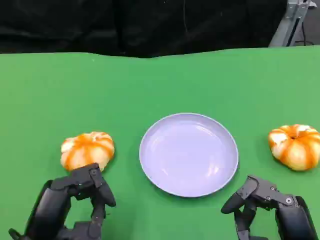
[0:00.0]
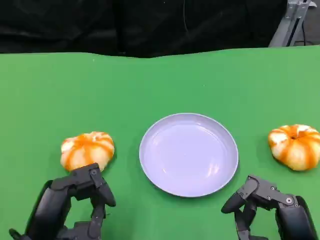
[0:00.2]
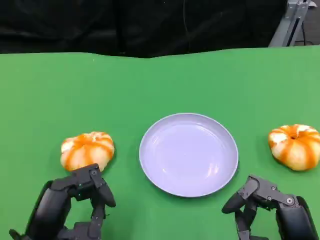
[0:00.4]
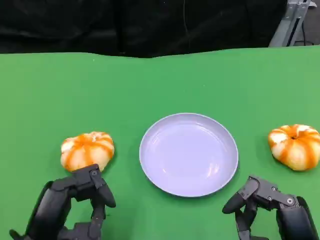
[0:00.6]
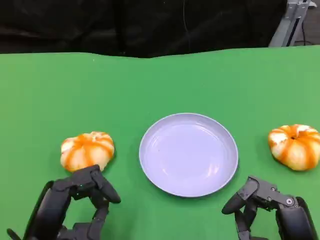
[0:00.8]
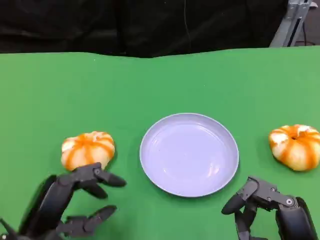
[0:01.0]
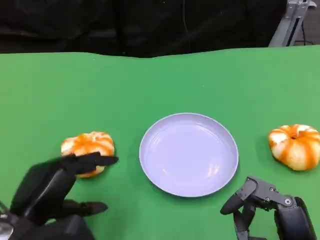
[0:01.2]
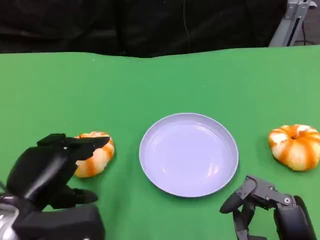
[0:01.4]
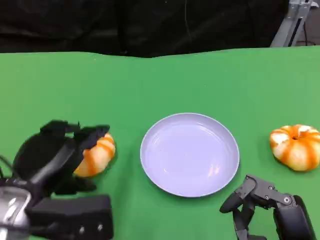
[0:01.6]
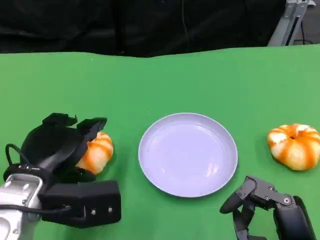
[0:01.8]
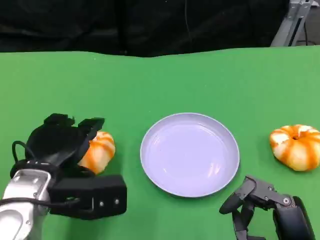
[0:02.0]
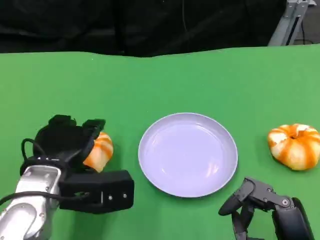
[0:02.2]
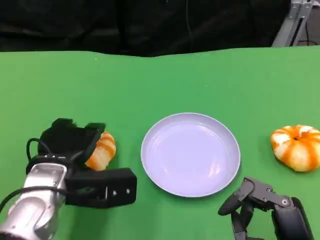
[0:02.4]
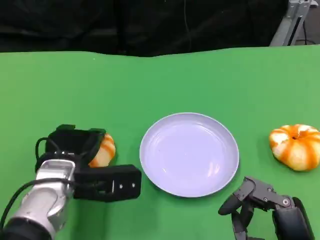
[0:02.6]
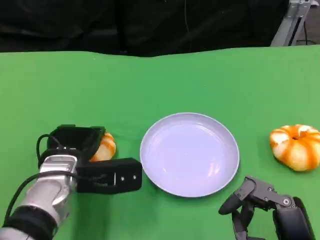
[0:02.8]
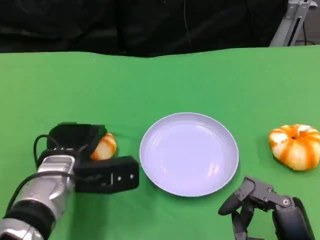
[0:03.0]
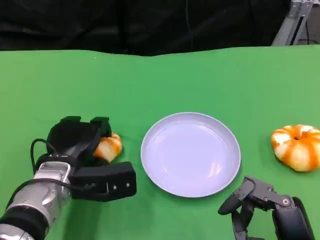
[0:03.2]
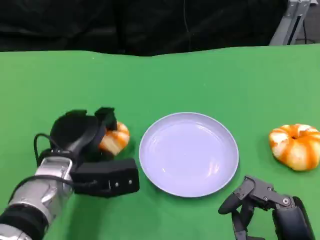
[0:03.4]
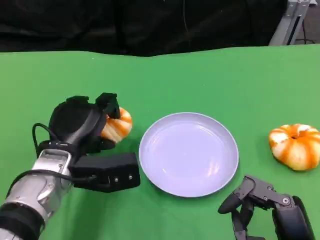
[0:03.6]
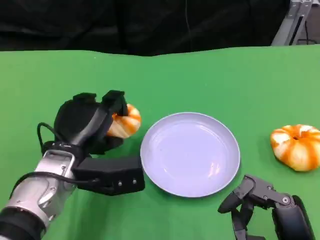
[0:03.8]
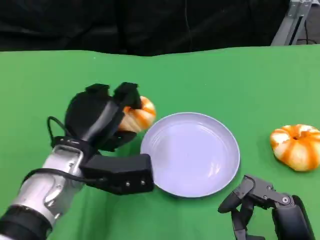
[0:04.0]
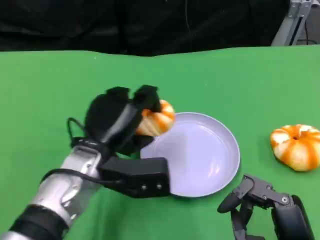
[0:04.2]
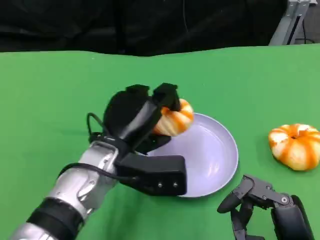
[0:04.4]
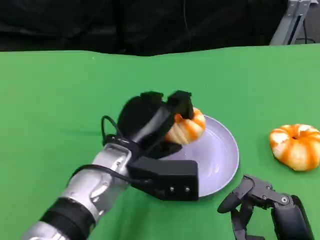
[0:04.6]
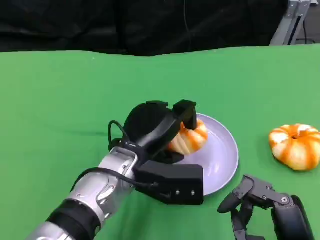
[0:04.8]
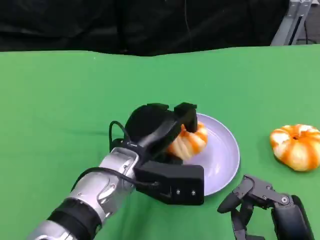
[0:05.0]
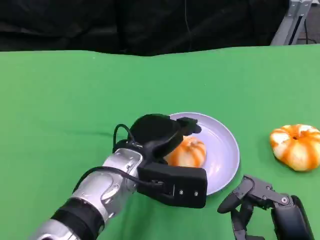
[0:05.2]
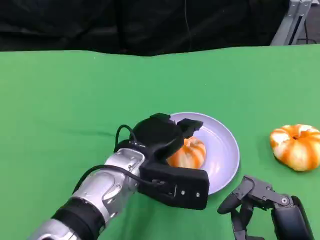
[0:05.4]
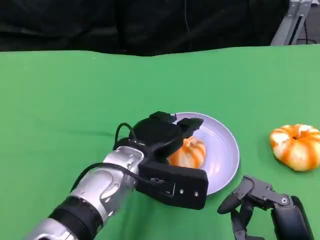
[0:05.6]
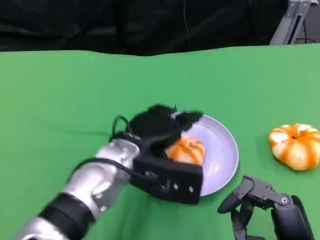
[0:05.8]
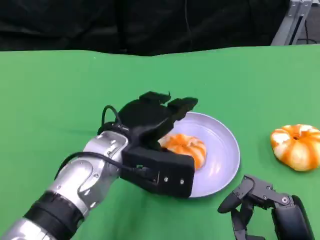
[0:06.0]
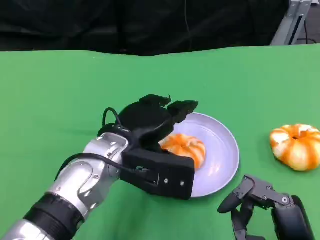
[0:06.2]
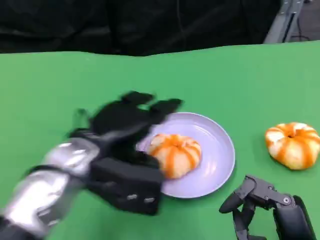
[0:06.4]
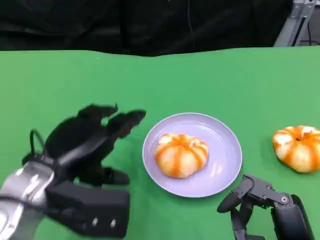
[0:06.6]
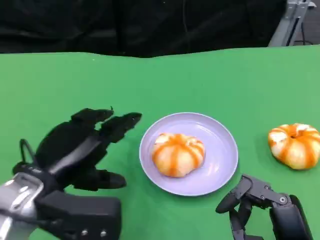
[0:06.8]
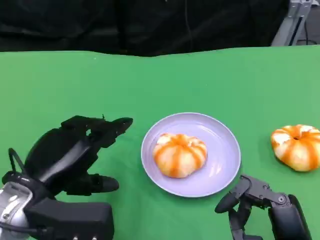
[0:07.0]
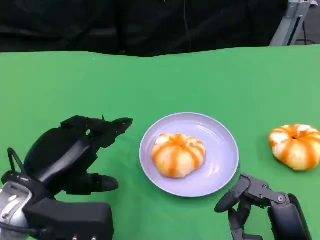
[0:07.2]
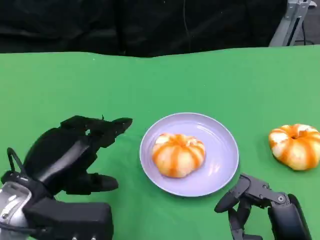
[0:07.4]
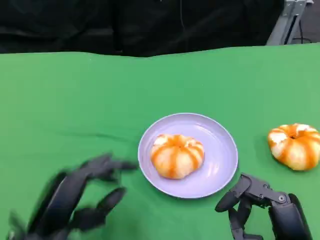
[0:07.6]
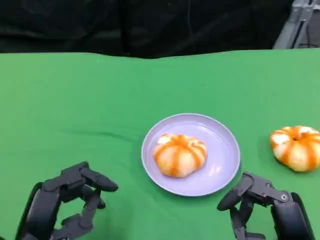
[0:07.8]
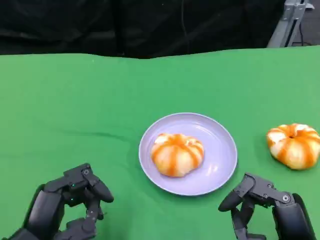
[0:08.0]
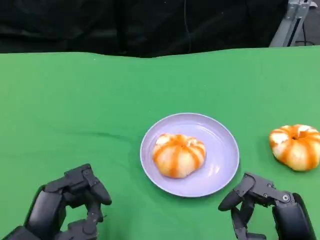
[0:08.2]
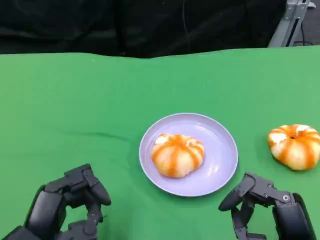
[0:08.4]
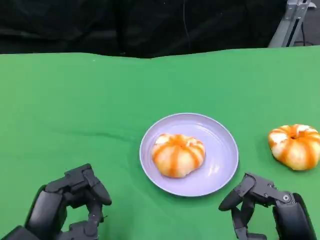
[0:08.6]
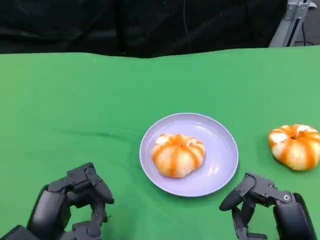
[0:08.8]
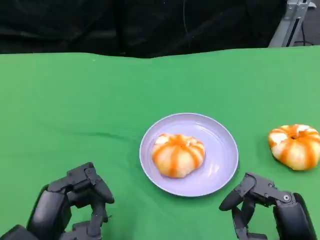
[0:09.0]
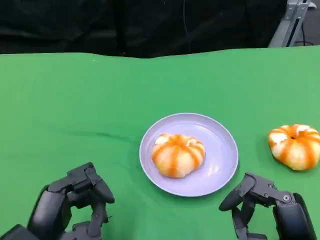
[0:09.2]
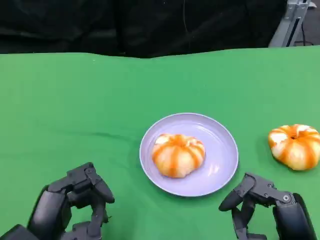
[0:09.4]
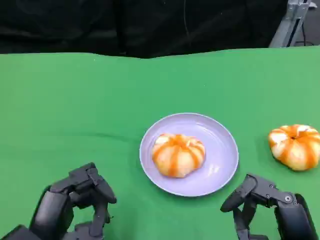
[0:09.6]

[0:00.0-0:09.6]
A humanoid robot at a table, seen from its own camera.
Task of the whole recording: Grasp the bread from the table and place it into the plate.
0:00.0 to 0:01.6: The left hand heads forward and upward, covering about 10 cm.
0:01.6 to 0:03.2: The left hand is displaced forward and downward by roughly 10 cm.
0:03.2 to 0:04.8: The left hand is displaced to the right by roughly 10 cm.
0:04.8 to 0:06.4: The left hand moves to the left and upward, about 10 cm.
0:06.4 to 0:08.0: The left hand heads backward, downward and to the left, covering roughly 15 cm.
0:08.0 to 0:09.6: There are only small adjustments of the hands.

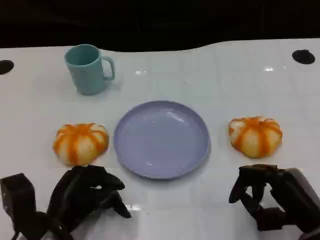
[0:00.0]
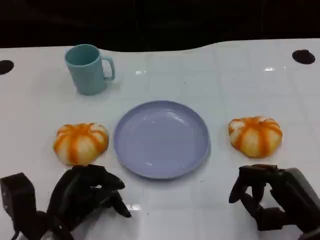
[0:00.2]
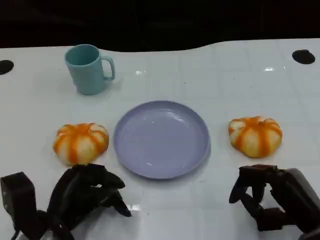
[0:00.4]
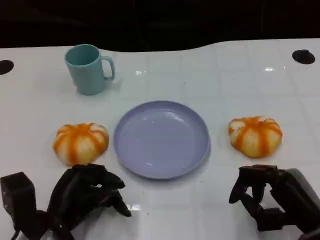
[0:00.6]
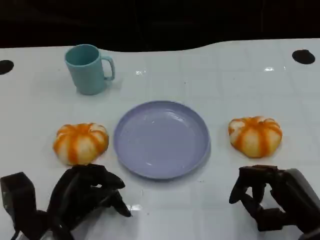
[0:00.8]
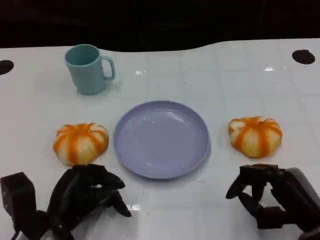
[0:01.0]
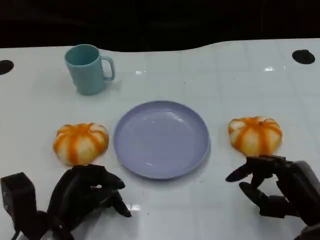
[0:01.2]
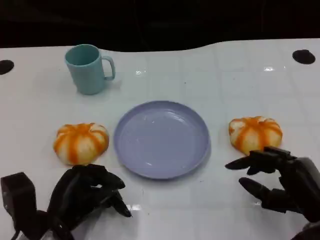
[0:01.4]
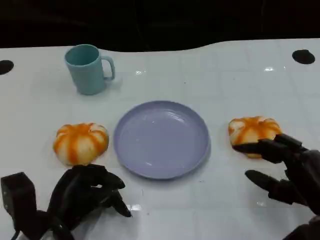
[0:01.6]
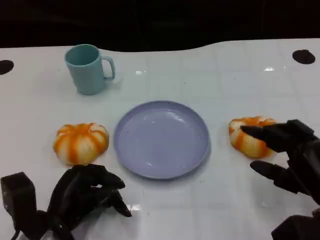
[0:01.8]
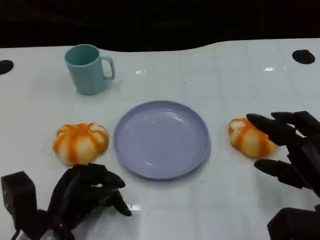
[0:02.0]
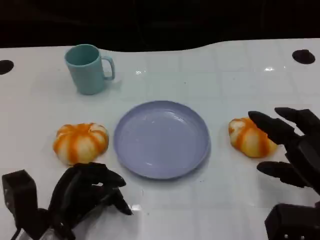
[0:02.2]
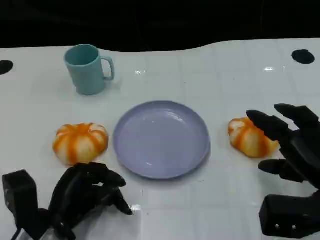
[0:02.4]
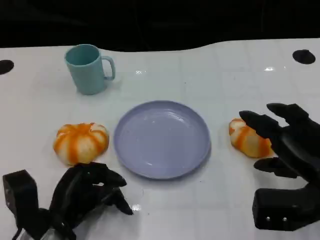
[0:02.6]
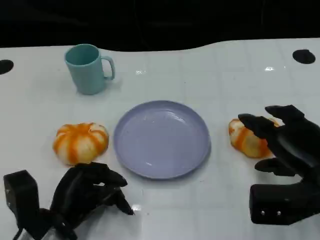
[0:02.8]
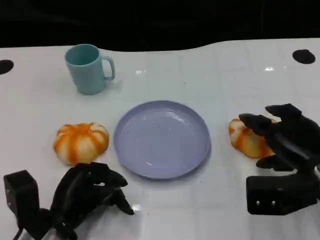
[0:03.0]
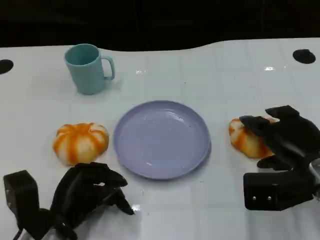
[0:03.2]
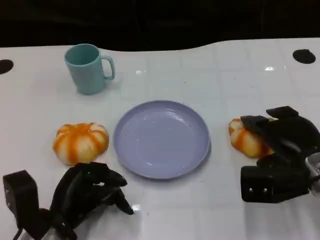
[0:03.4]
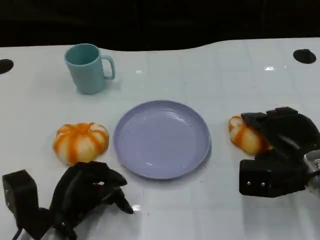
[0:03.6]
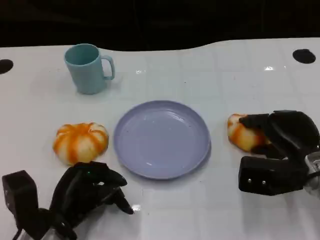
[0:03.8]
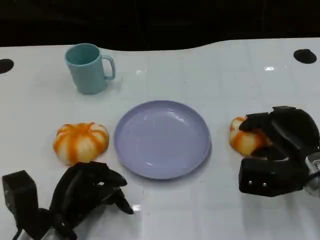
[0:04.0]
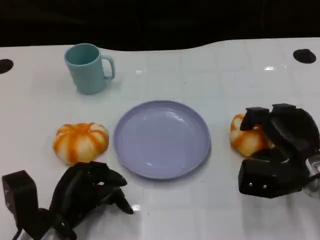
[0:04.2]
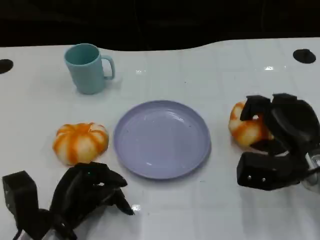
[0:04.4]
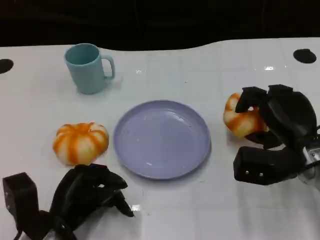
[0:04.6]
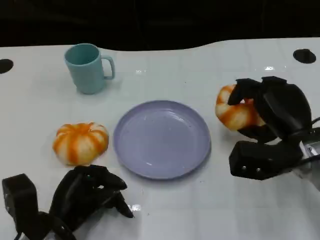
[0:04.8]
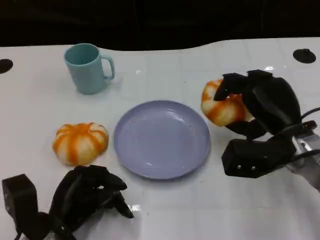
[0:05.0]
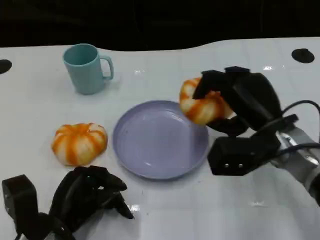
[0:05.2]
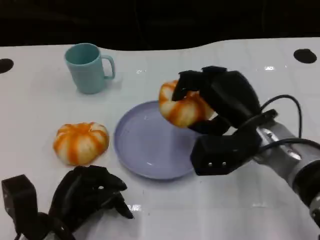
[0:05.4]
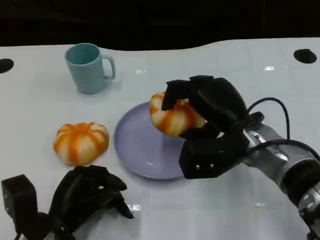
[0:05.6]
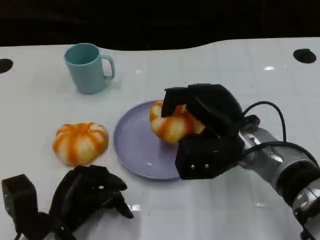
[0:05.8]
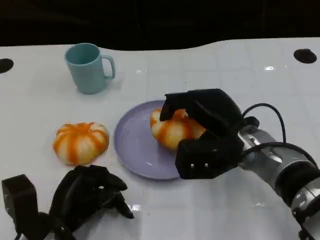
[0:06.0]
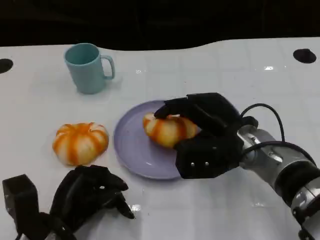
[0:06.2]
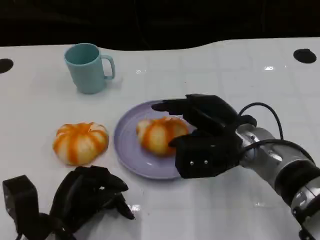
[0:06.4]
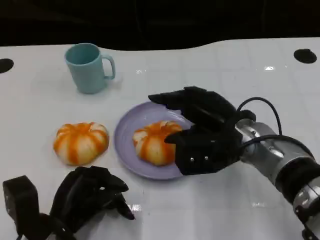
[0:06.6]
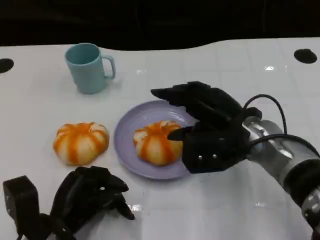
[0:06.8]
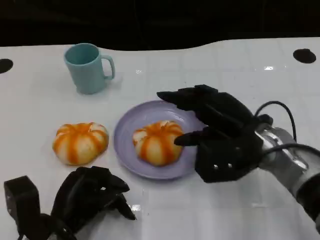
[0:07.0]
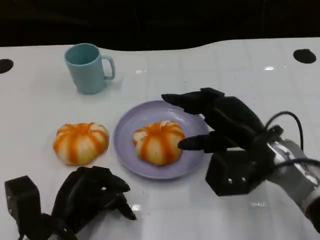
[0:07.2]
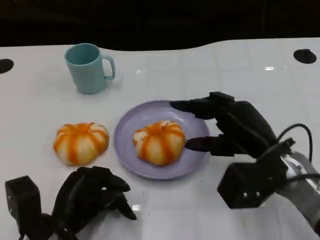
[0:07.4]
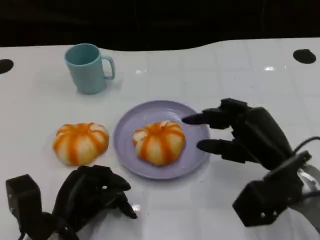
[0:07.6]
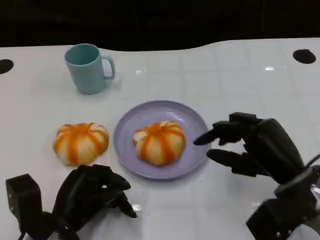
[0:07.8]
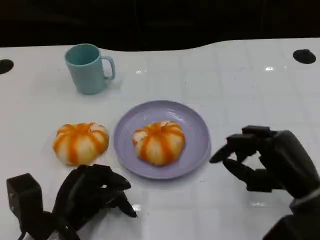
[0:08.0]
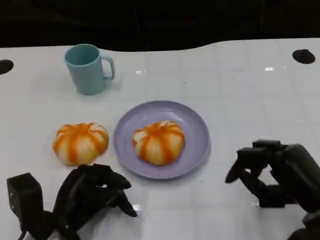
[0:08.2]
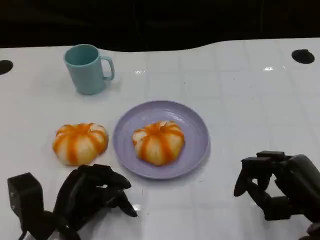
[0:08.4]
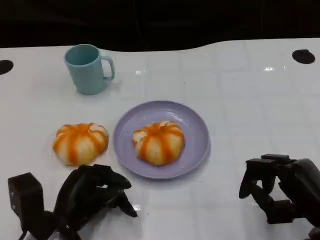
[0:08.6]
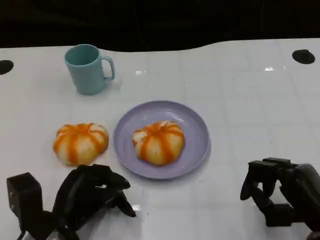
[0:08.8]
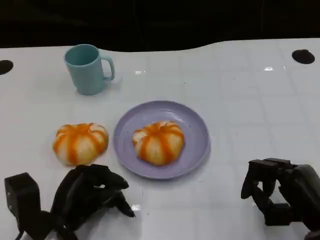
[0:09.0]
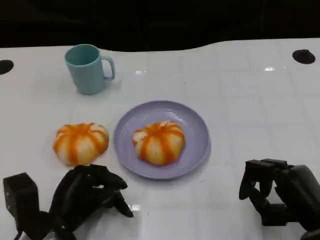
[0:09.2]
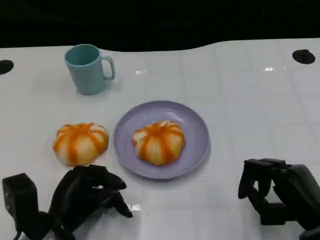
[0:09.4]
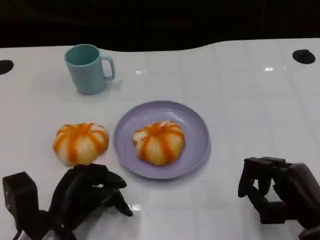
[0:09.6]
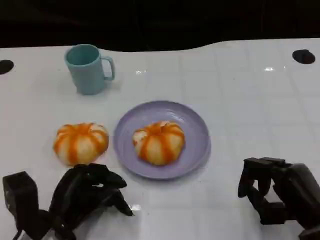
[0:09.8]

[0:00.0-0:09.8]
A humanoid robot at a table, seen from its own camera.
Task of the whole recording: Grasp the bread from the table and place it into the plate.
0:00.0 to 0:01.4: There are only small adjustments of the hands.
0:01.4 to 0:02.8: The right hand shifts some 5 cm forward.
0:02.8 to 0:04.2: The right hand changes place by some 5 cm.
0:04.2 to 0:05.6: The right hand is displaced to the left and upward by some 10 cm.
0:05.6 to 0:07.0: The hands make only small movements.
0:07.0 to 0:08.4: The right hand goes approximately 15 cm backward and to the right.
0:08.4 to 0:09.8: The hands move only a little.

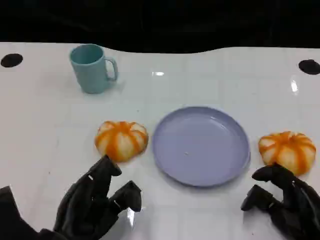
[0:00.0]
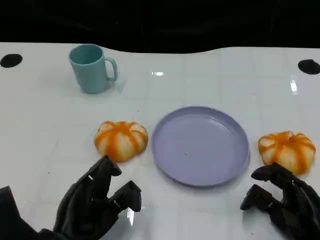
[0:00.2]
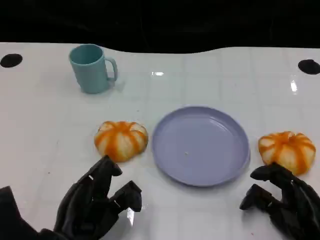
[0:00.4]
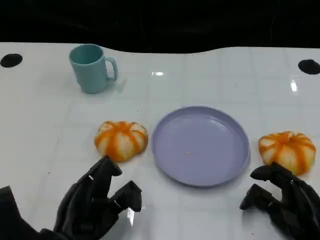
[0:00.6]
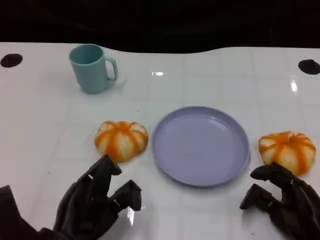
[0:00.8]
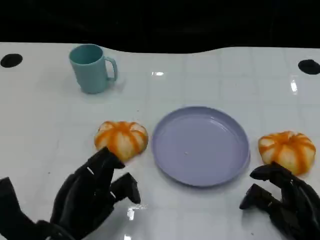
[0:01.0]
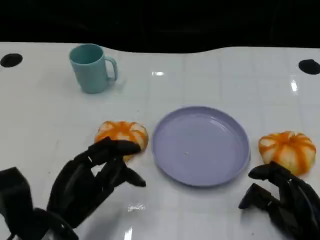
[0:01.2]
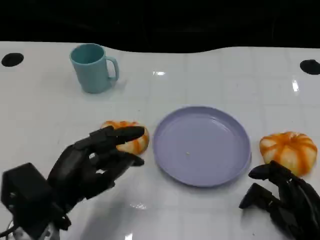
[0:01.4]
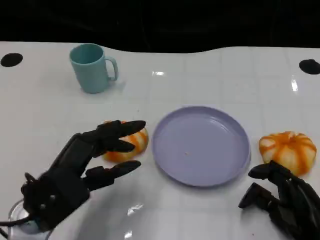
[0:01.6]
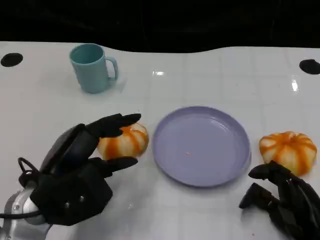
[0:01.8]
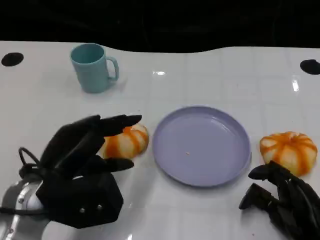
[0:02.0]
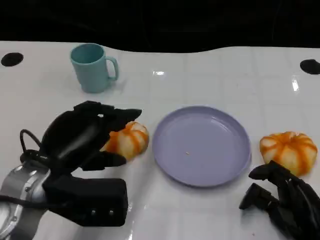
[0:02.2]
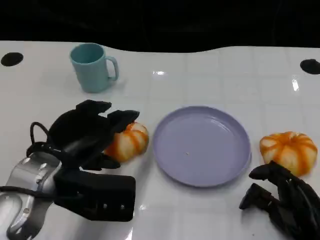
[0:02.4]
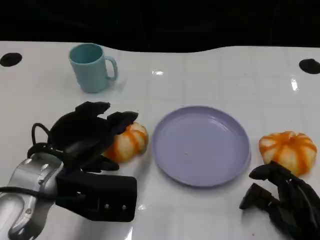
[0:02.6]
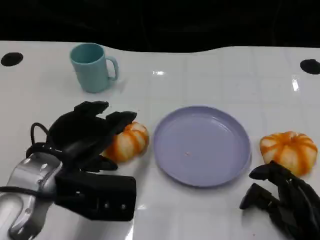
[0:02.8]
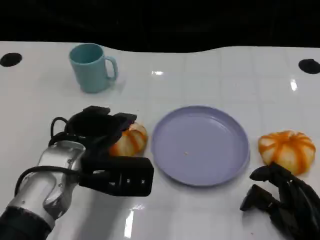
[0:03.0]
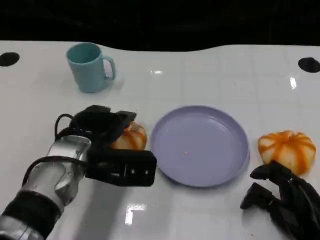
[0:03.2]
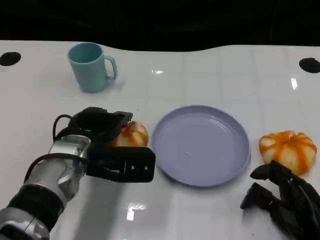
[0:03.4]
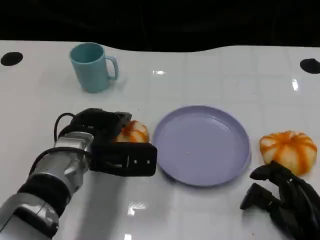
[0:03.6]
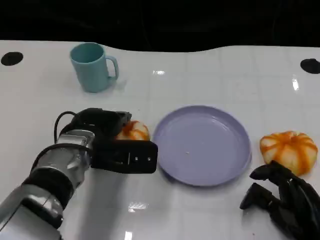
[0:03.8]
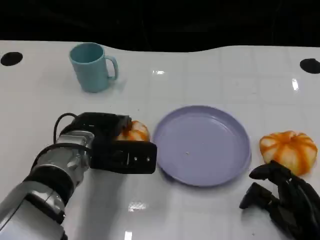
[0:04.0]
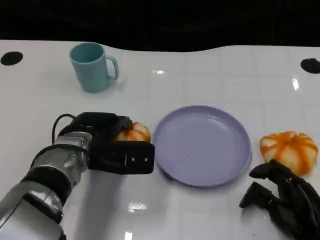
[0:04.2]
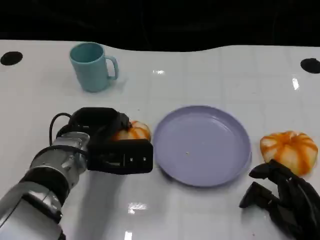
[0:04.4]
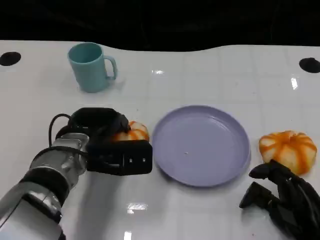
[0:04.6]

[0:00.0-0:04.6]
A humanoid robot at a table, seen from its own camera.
Task of the whole recording: Grasp the bread from the table and place it into the plate.
0:00.0 to 0:01.6: The left hand is displaced upward by approximately 5 cm.
0:01.6 to 0:03.0: The left hand travels forward by some 5 cm.
0:03.0 to 0:04.6: There are only small adjustments of the hands.
